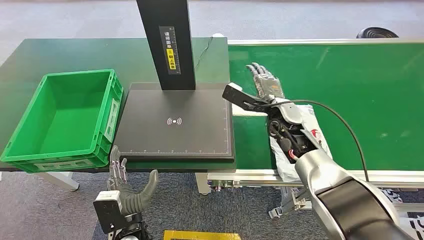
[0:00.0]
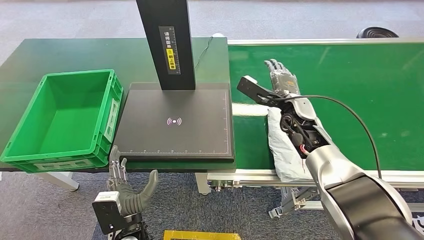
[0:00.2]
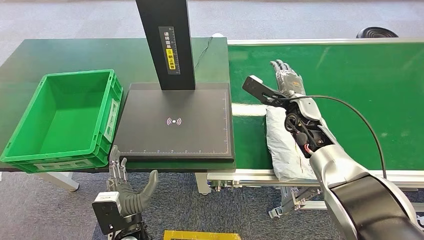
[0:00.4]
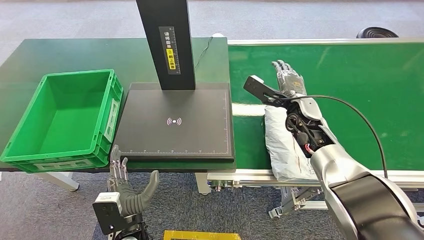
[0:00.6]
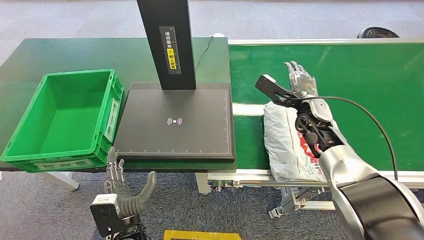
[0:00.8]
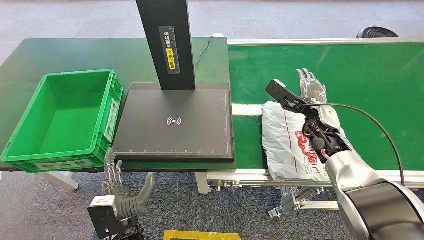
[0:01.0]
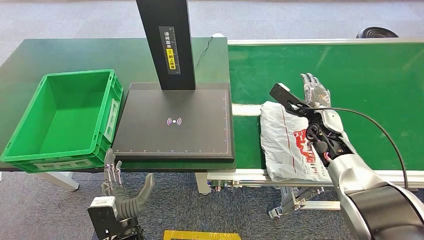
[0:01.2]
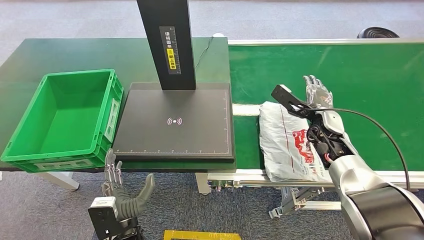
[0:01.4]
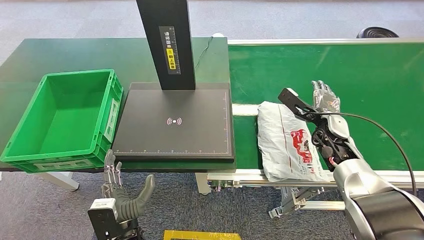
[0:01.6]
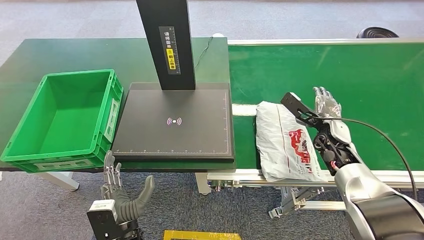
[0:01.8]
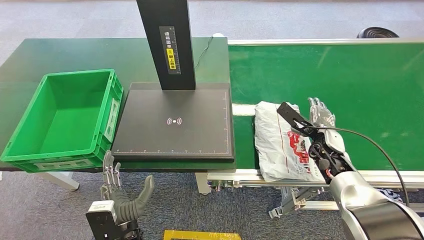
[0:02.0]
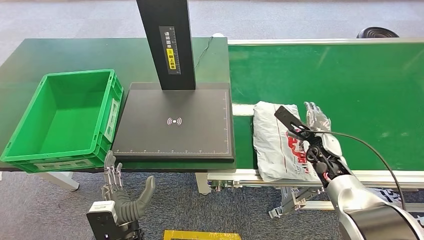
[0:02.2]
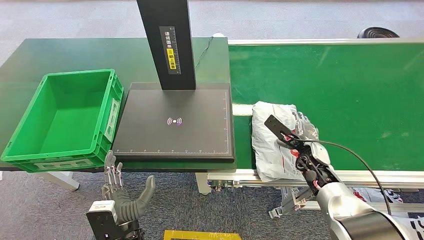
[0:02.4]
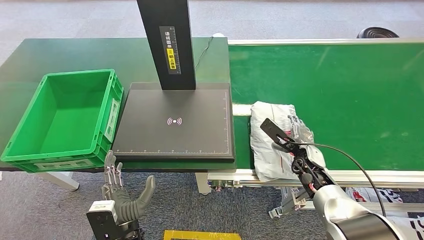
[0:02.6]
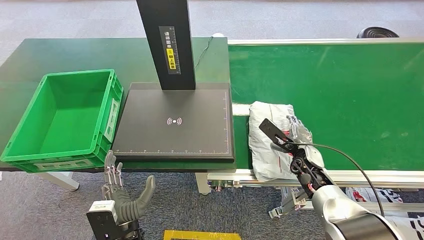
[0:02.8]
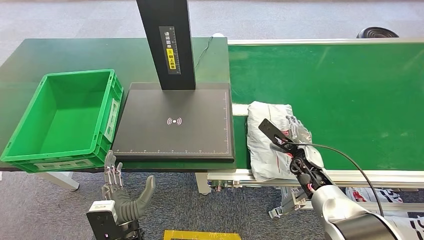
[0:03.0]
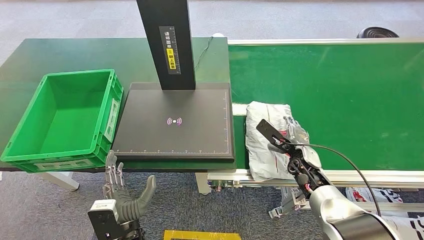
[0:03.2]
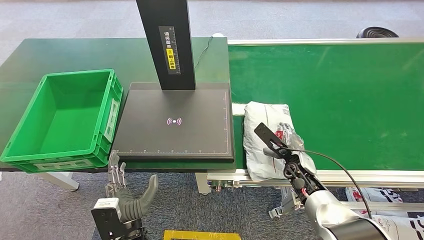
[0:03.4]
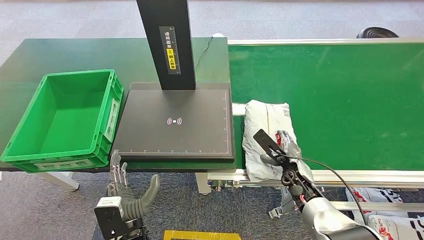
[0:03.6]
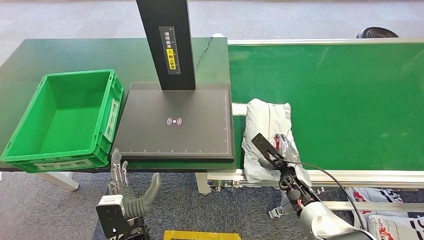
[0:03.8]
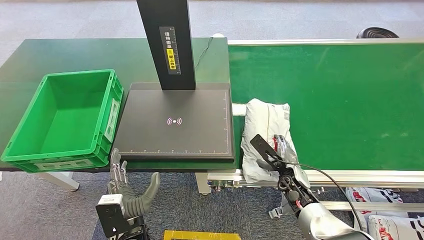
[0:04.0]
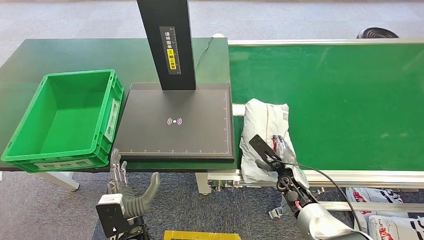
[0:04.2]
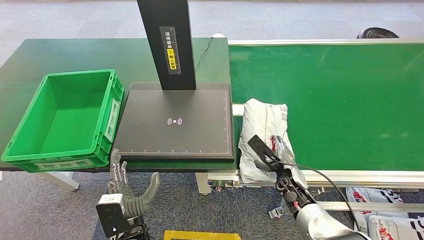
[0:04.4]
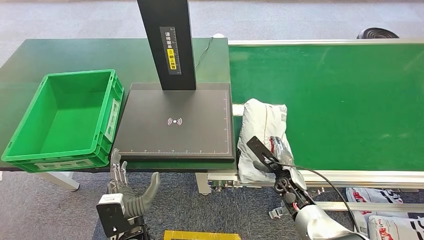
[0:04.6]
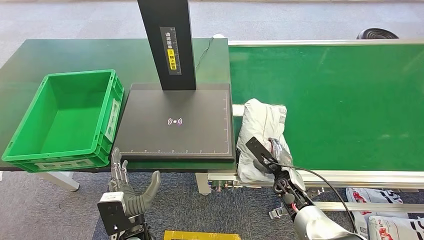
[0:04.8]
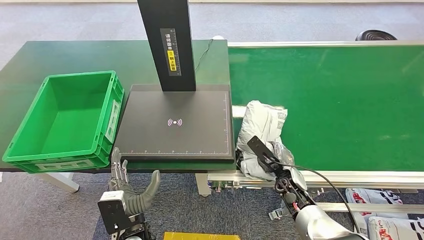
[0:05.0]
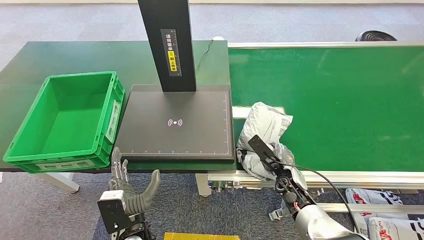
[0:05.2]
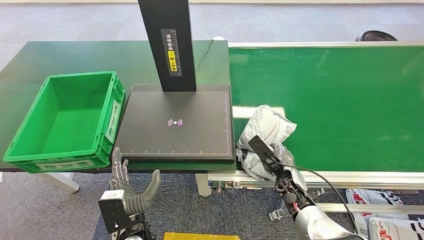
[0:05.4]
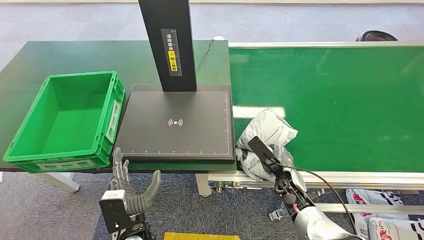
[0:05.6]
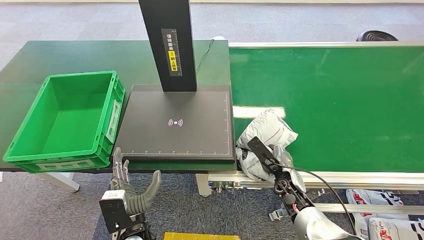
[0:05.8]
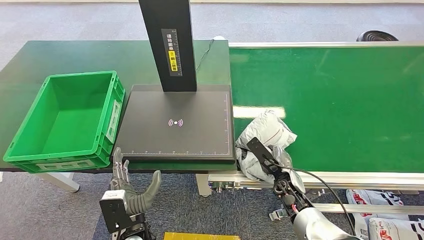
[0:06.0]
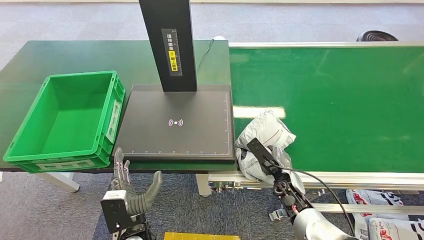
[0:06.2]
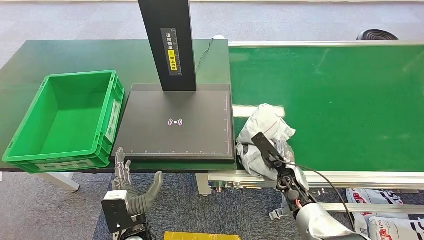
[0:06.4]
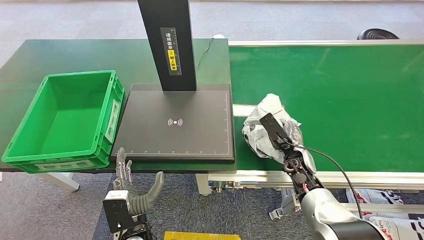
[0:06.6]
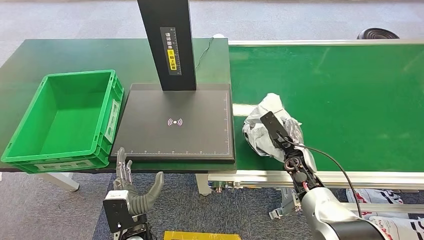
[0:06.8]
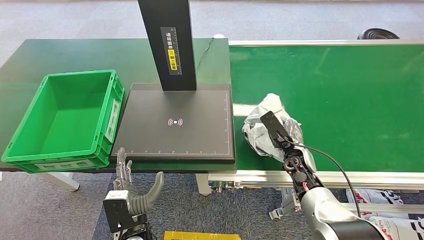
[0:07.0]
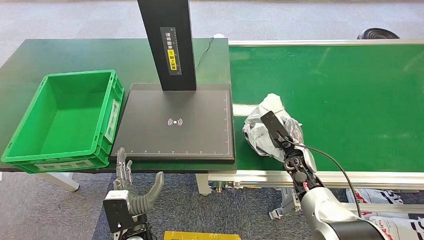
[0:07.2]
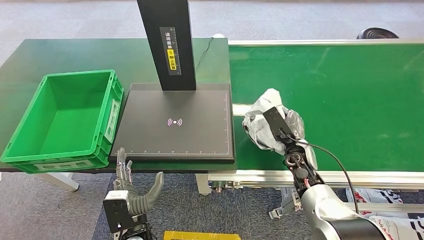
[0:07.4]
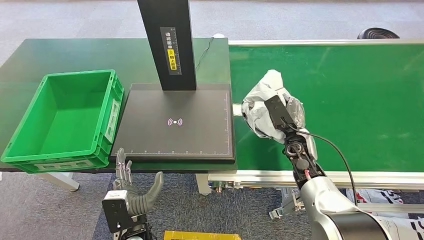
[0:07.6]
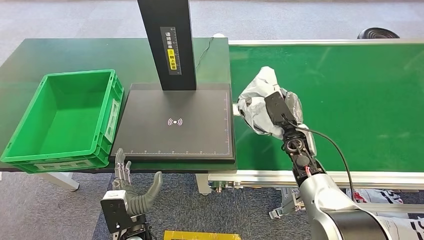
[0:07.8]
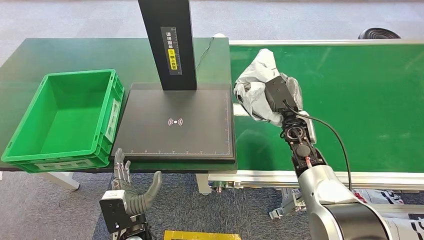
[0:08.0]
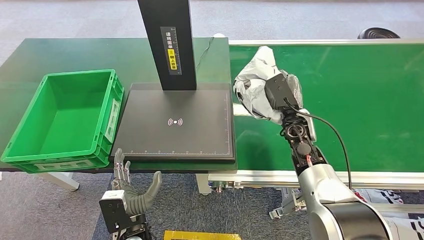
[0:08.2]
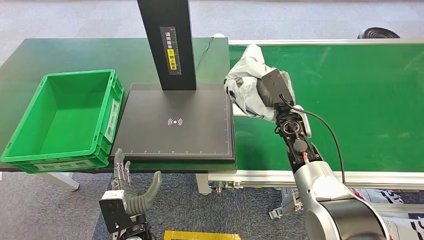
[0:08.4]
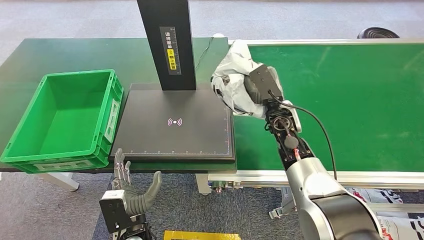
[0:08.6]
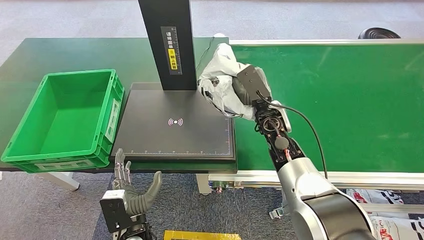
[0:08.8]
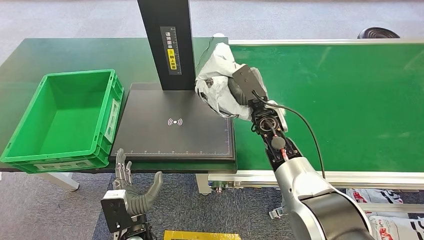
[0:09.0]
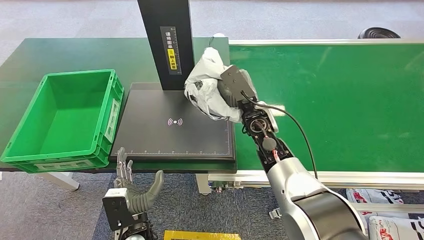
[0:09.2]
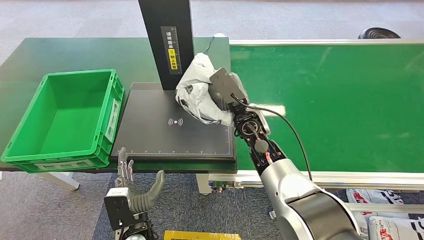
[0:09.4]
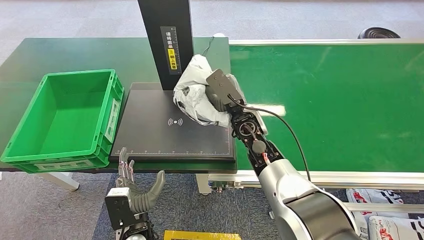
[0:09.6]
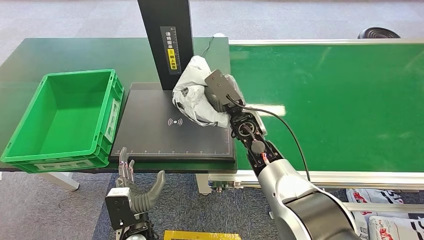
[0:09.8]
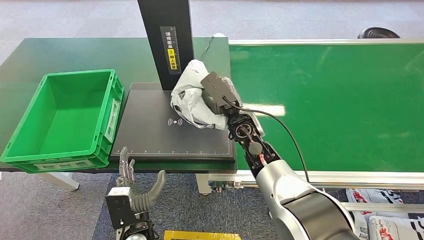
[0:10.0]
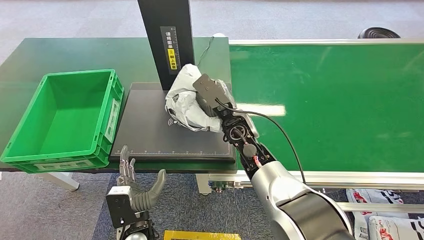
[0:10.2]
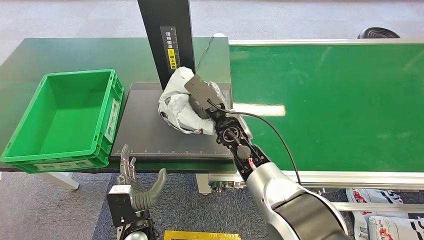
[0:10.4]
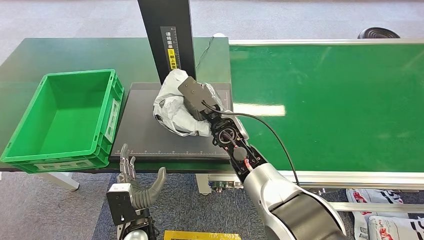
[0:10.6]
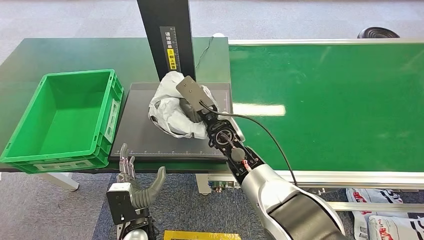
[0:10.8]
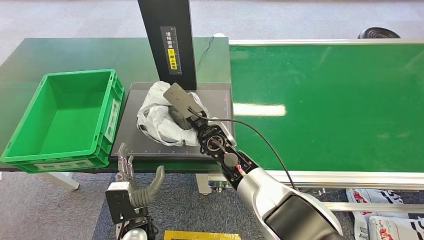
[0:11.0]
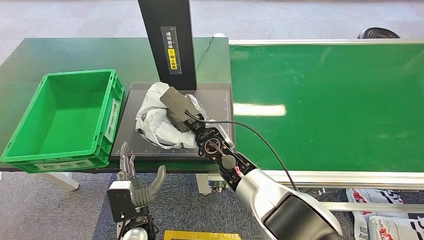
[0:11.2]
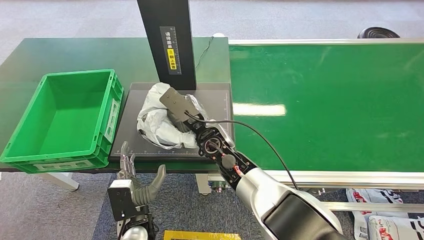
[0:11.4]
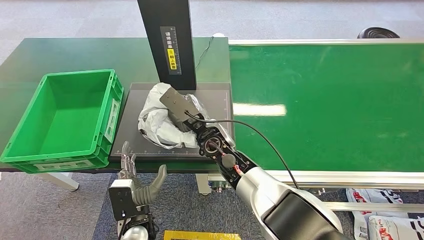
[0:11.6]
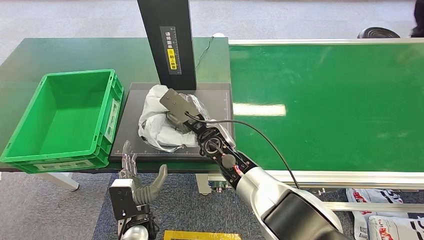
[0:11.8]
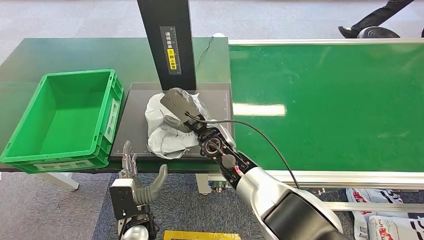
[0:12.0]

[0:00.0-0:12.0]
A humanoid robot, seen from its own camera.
Step, 0:00.0 to 0:08.2: Pick up the package from the conveyor belt.
0:01.6 to 0:03.0: The right hand travels downward, to the left and backward by about 10 cm.
0:03.0 to 0:04.4: The right hand shifts some 5 cm downward.
0:04.4 to 0:06.0: The hands stay close to where they were, moving slightly.
0:06.0 to 0:07.6: The right hand heads upward and forward, covering roughly 15 cm.
0:07.6 to 0:09.0: The right hand heads to the left and upward, covering roughly 15 cm.
0:09.0 to 0:10.4: The right hand shifts approximately 10 cm to the left.
0:10.4 to 0:12.0: The hands make only small movements.

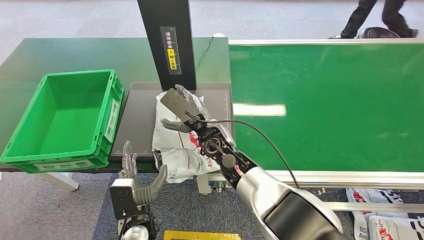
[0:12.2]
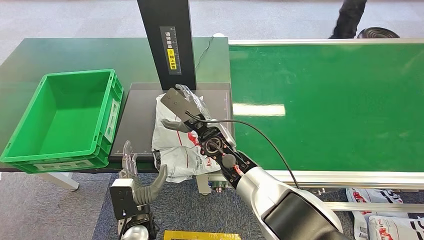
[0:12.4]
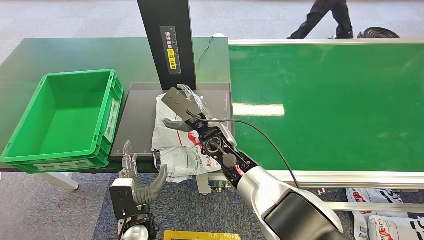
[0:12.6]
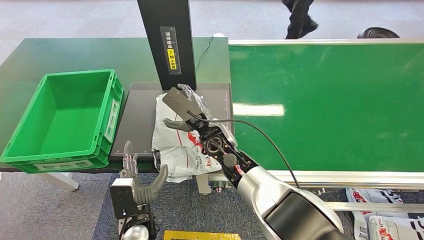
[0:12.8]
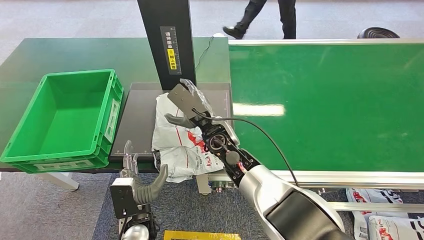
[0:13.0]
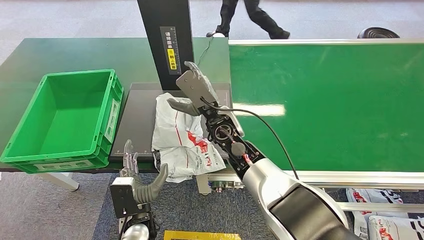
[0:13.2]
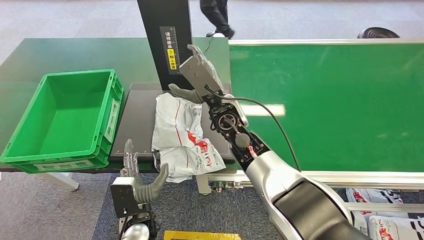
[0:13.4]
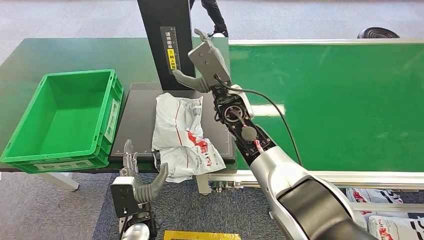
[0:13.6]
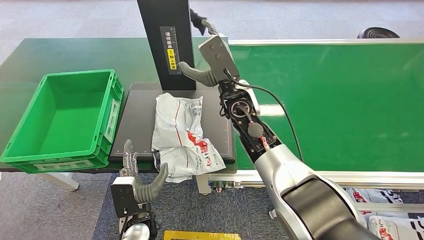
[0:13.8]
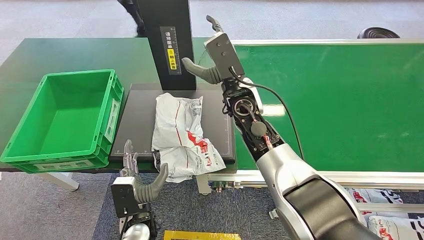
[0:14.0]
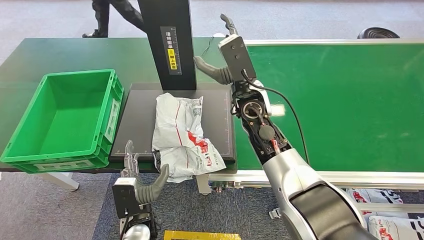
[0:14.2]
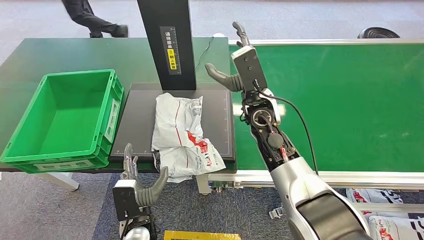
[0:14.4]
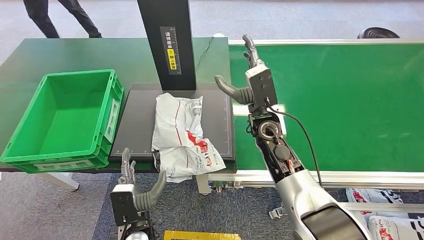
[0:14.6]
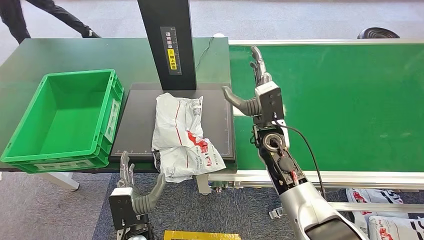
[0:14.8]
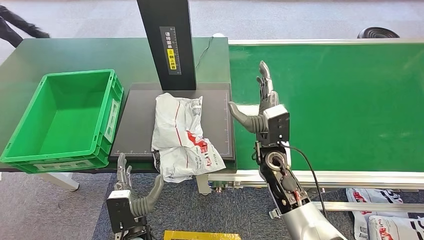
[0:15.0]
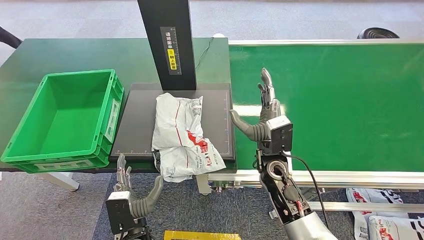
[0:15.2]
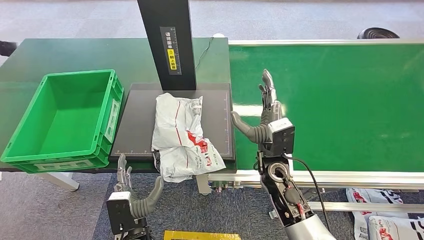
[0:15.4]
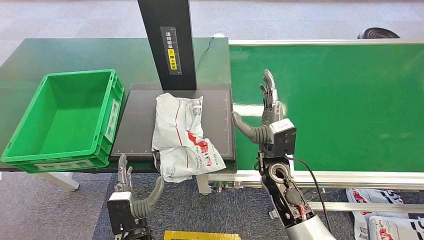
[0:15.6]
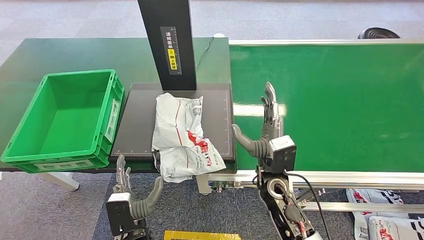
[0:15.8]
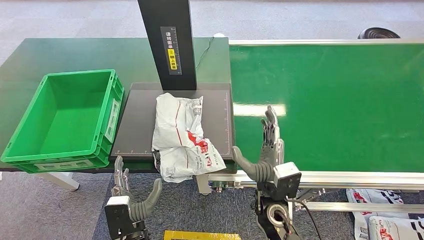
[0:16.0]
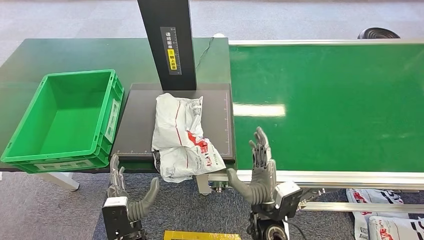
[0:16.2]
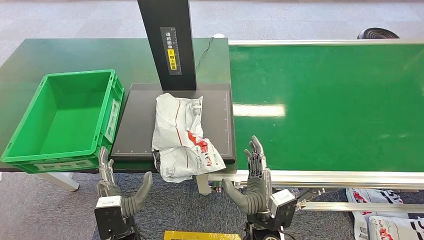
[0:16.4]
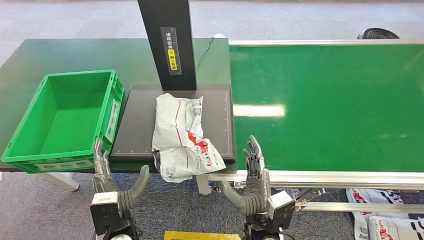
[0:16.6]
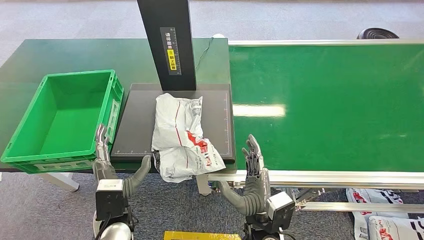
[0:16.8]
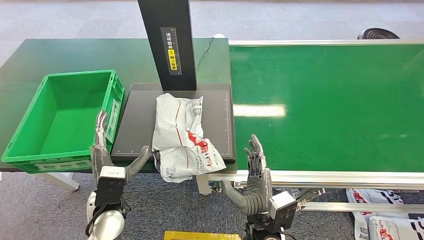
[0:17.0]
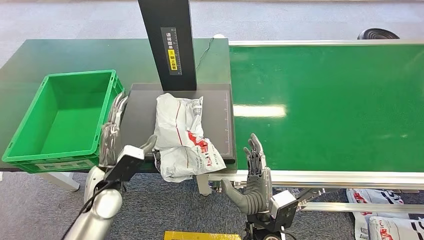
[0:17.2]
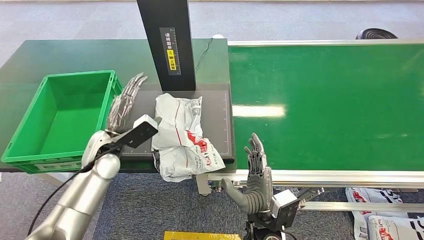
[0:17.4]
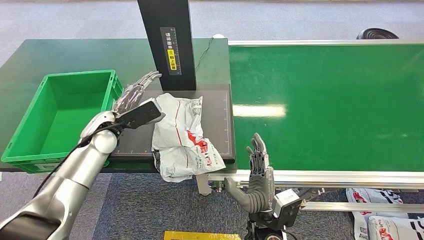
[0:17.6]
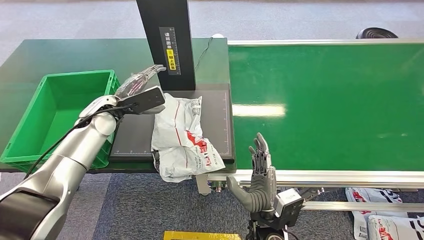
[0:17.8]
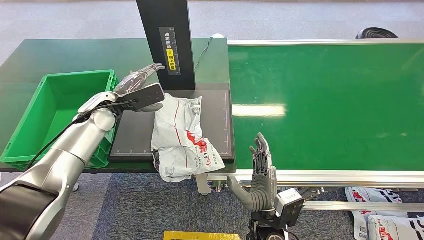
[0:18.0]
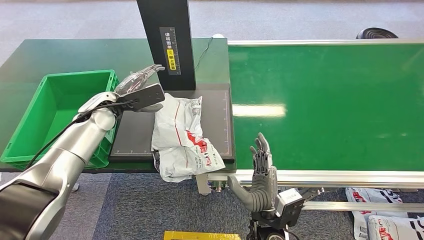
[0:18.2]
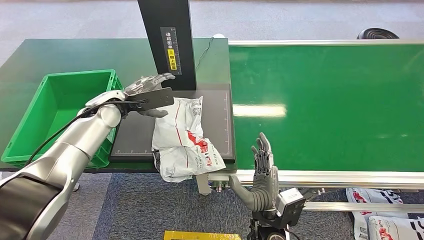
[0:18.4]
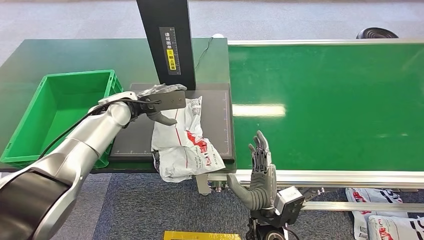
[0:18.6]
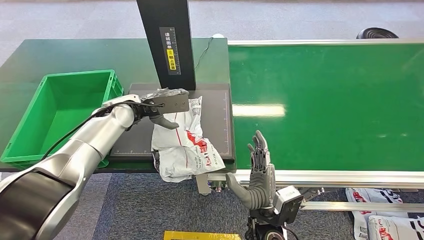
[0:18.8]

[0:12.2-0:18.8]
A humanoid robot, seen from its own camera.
Step, 0:12.2 to 0:14.4: Place the package onto the inbound machine.
0:12.2 to 0:13.8: The right hand is displaced upward by about 10 cm.
0:13.8 to 0:15.4: The right hand moves downward, backward and to the right, roughly 20 cm.
0:15.4 to 0:17.2: The right hand moves backward and downward, approximately 15 cm; the left hand heads forward, upward and to the left, covering approximately 15 cm.
0:17.2 to 0:18.8: The left hand travels forward and upward by approximately 20 cm.
